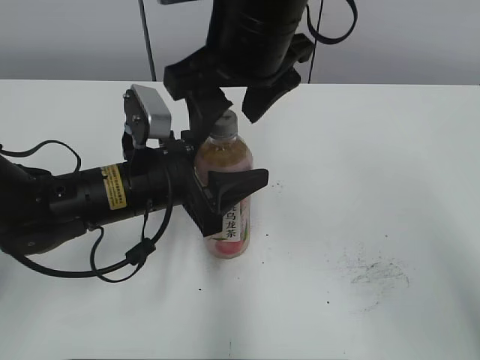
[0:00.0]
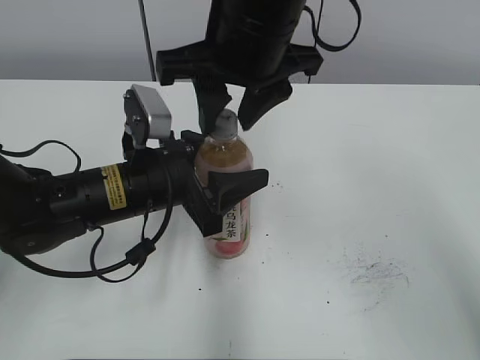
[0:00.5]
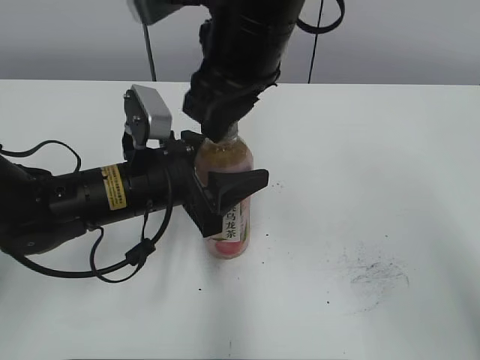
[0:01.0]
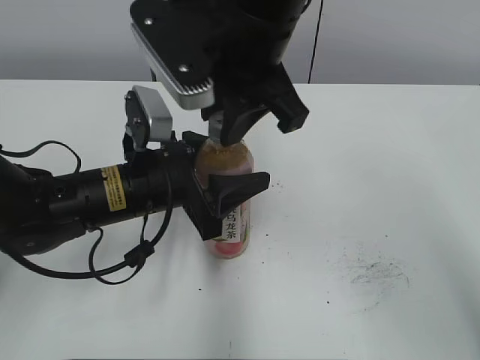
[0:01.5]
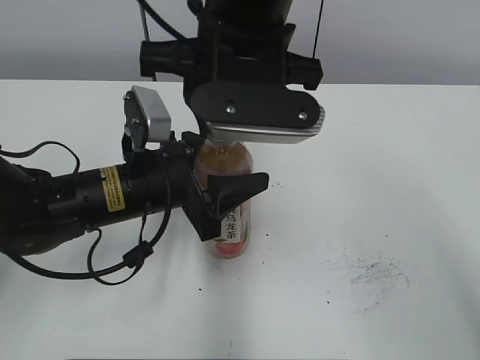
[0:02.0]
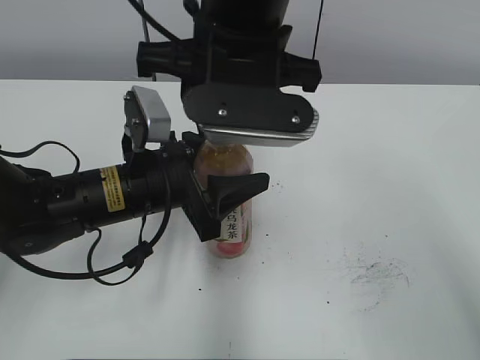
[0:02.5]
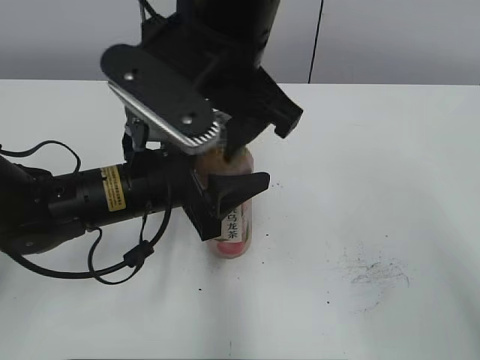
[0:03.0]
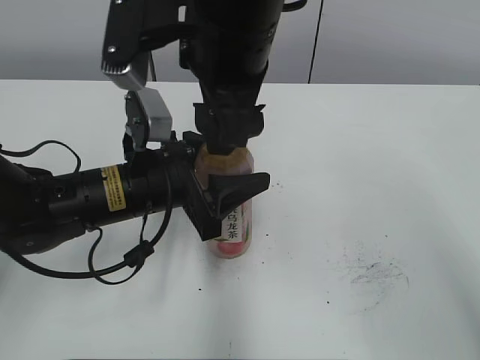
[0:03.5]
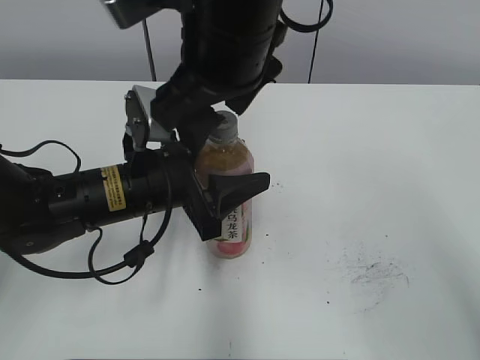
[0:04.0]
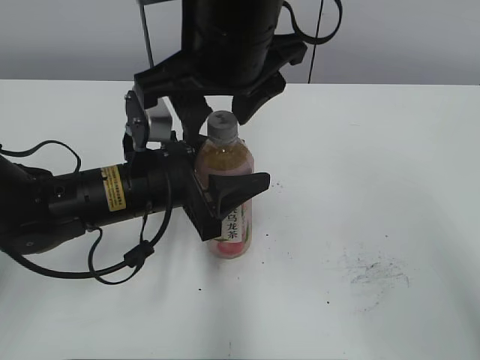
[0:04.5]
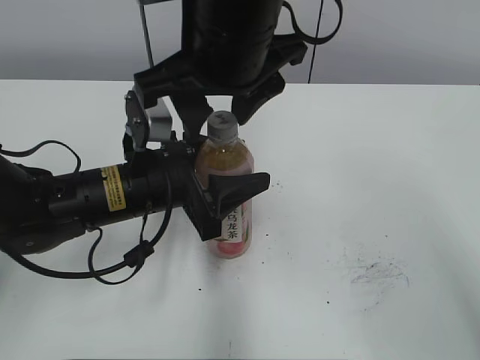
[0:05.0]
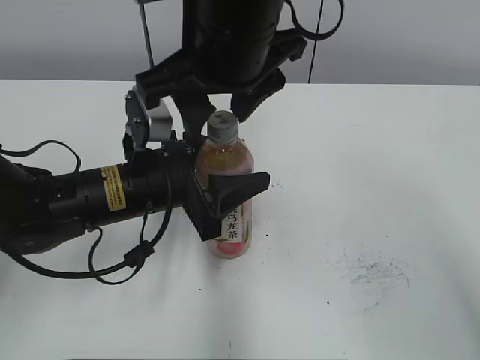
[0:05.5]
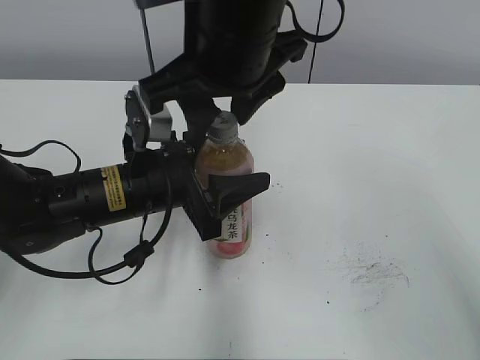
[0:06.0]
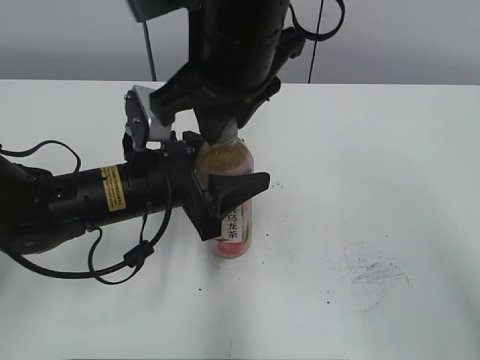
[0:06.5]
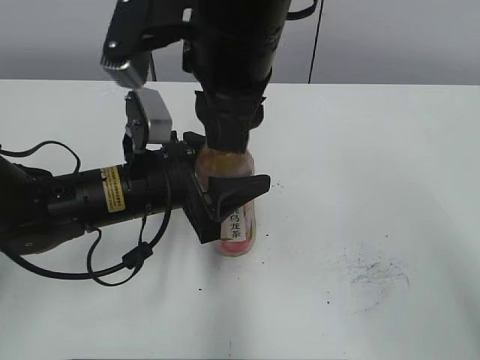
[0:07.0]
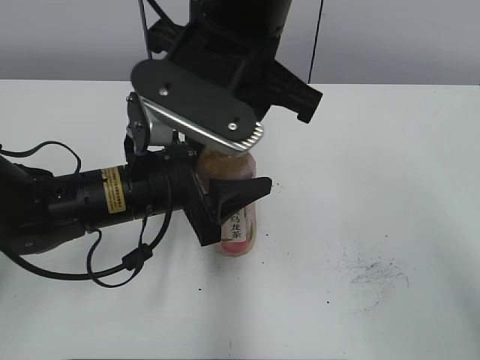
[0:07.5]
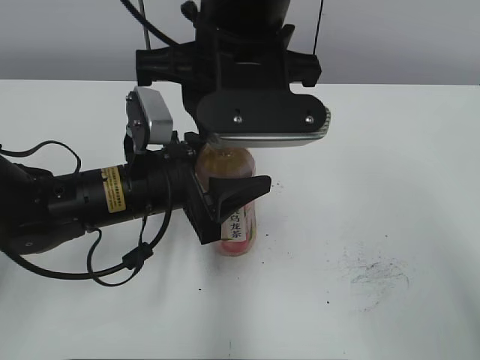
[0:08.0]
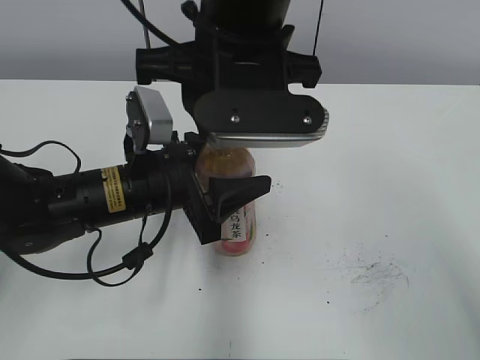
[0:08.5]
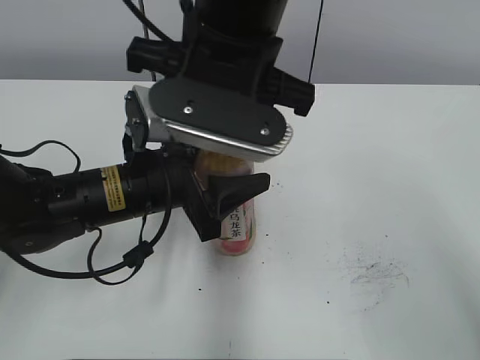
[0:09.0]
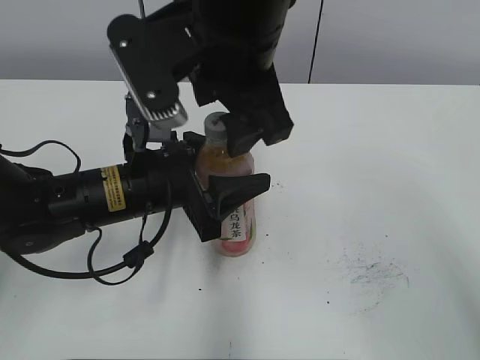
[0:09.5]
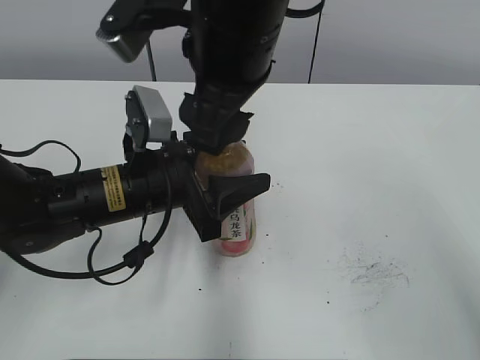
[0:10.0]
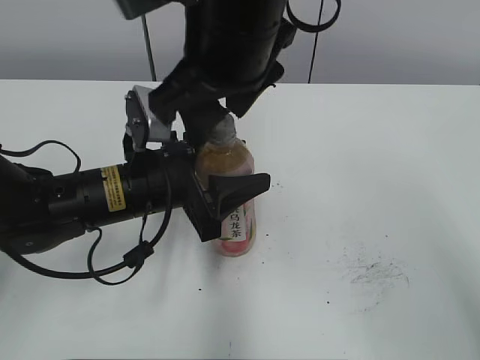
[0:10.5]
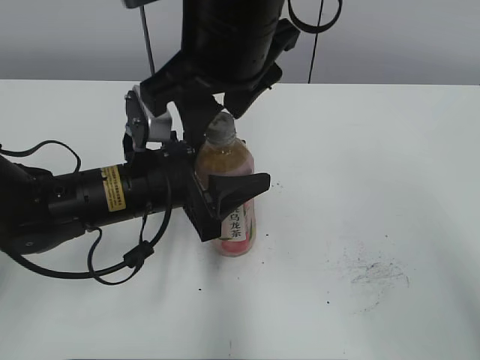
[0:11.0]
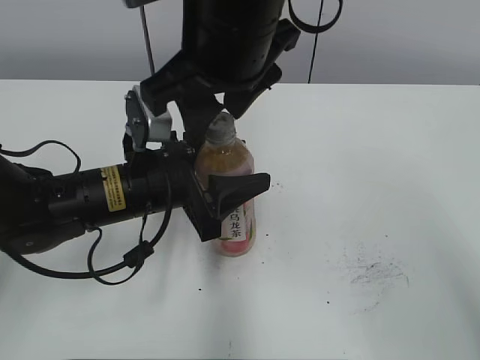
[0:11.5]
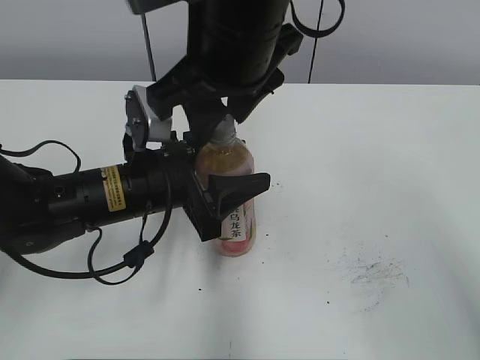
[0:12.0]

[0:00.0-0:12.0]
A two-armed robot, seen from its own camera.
0:00.0 to 0:02.0: The right gripper closes up.
0:02.0 to 0:04.0: The right gripper opens its fingers.
0:04.0 to 0:06.0: The right gripper closes up.
0:06.0 to 0:08.0: The right gripper closes its fingers.
0:08.0 to 0:10.0: The right gripper opens.
0:10.0 to 0:12.0: The right gripper closes up.

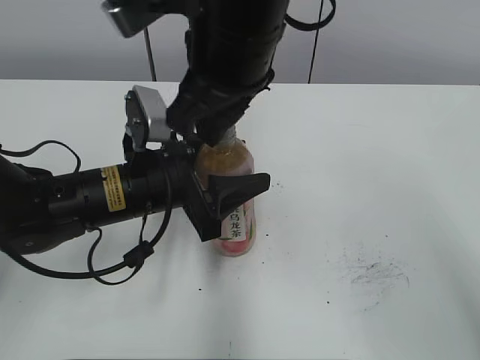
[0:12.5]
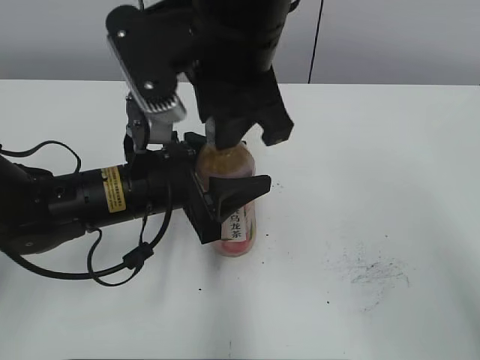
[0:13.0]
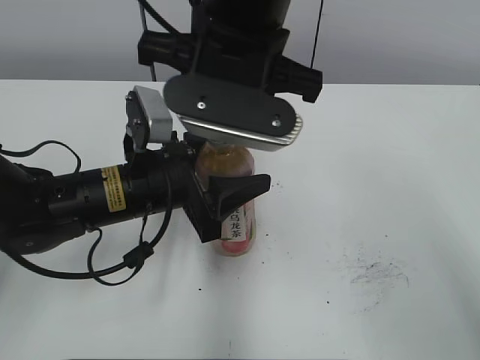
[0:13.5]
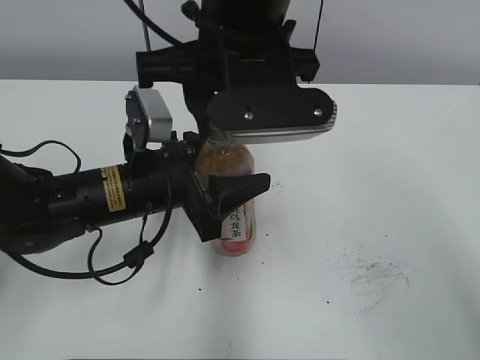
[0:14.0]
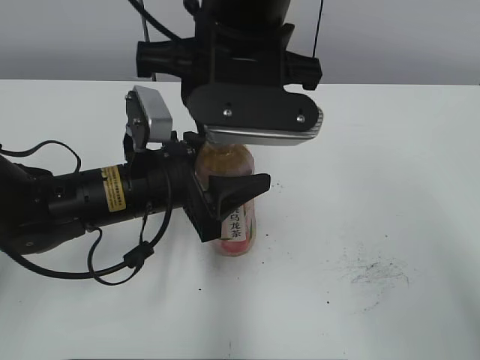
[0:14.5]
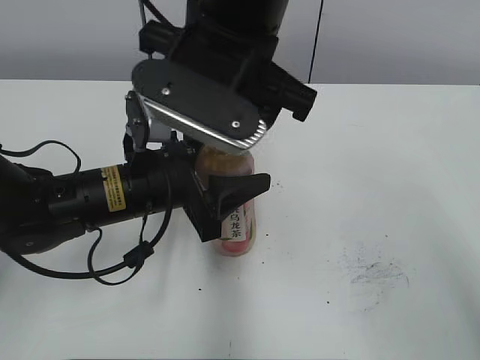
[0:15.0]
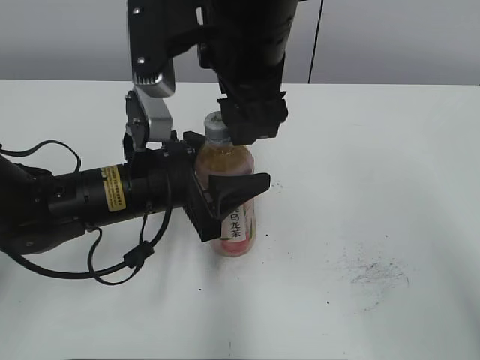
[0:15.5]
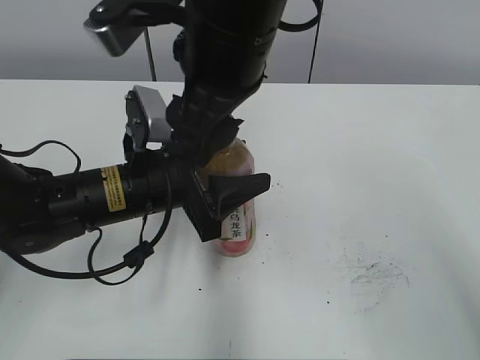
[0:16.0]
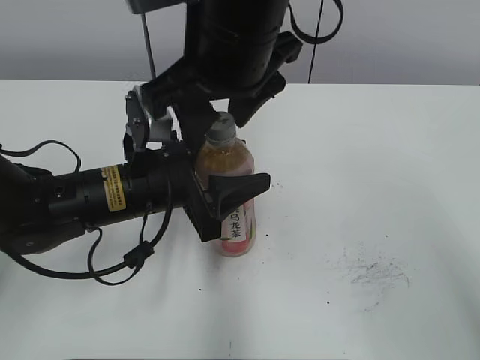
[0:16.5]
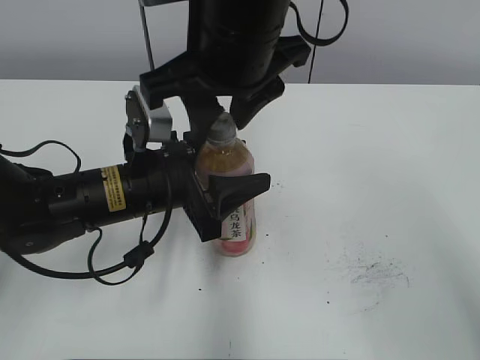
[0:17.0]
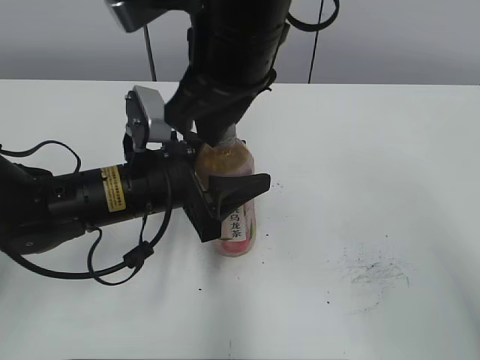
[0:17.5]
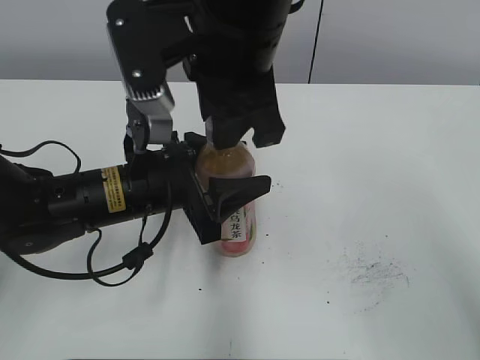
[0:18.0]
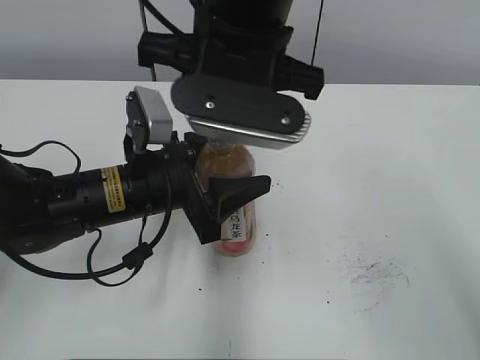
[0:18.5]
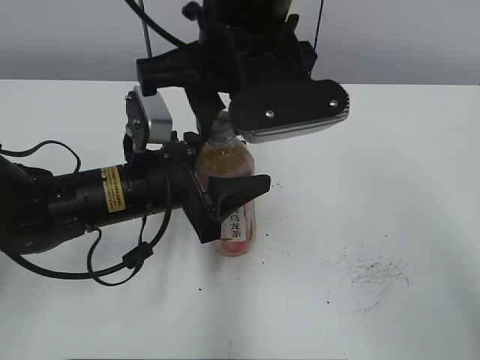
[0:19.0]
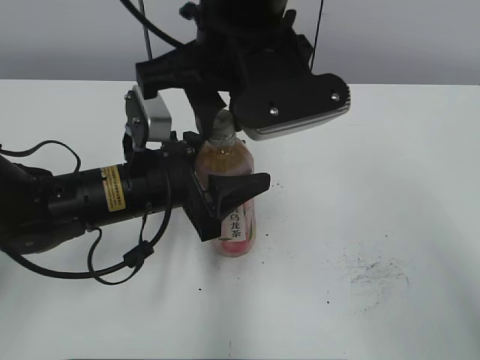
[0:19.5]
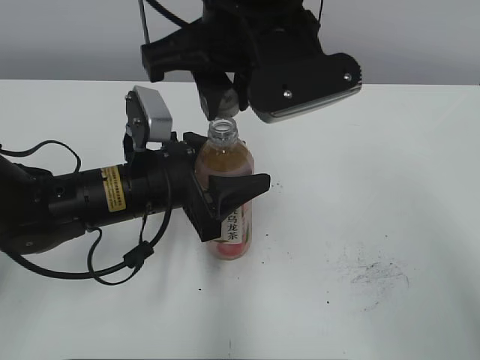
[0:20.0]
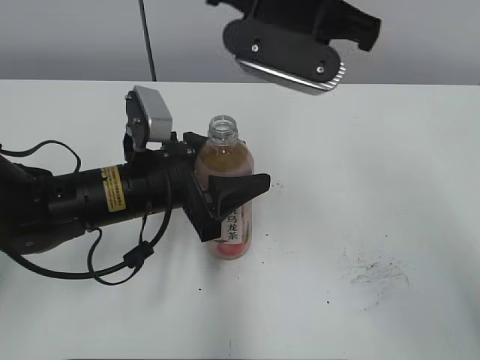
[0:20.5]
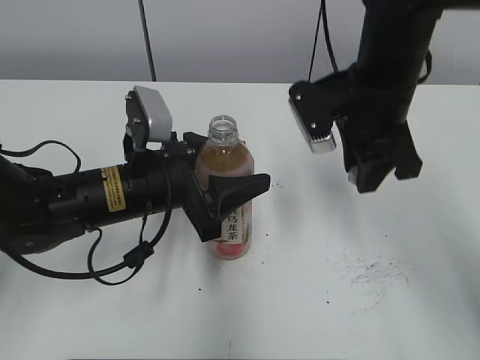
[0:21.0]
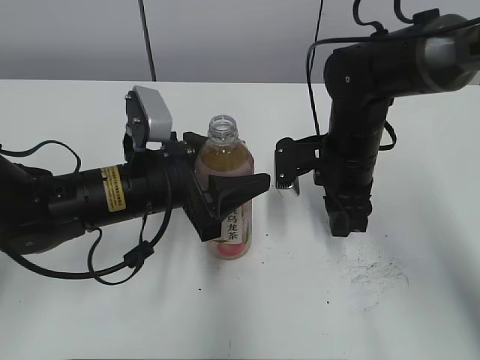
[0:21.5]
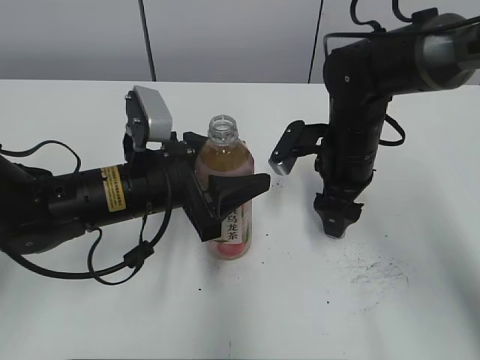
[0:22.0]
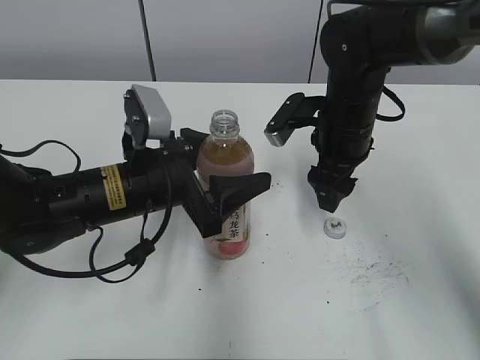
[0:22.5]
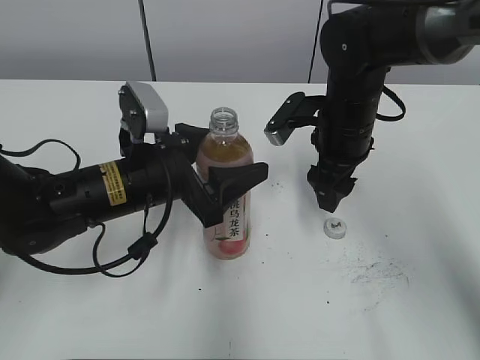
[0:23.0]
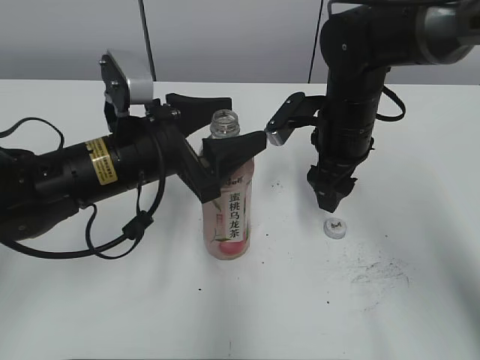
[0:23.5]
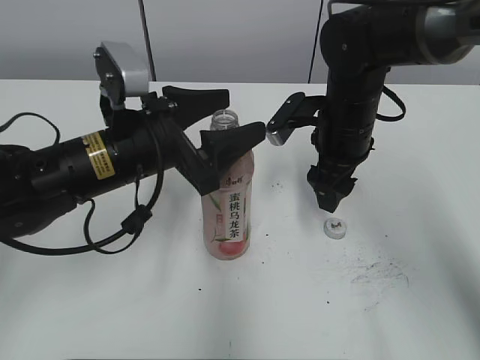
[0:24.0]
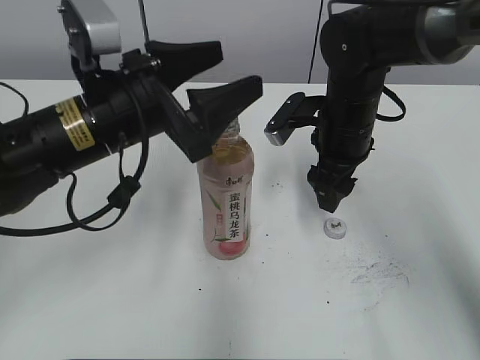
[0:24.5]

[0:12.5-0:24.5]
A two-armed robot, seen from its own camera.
Step, 0:20.0 to 0:21.5: Place the bottle cap on the right.
Step, 0:22.5 to 0:23.0: Place the Peach Oolong Tea with the left hand.
0:14.5 to 0:16.5: The right gripper opens up.
0:16.5 to 0:18.5: The right gripper closes its fingers.
0:18.5 to 0:20.5: The right gripper moves approximately 5 cm.
0:20.5 to 0:22.5: The right gripper heads downward and to the right, covering roughly 20 cm, and opens its fingers.
0:22.5 to 0:24.5: The left gripper shifts some 10 cm upward.

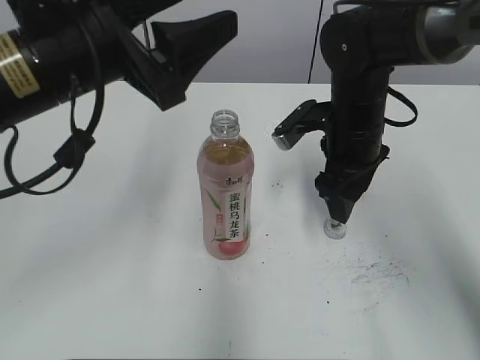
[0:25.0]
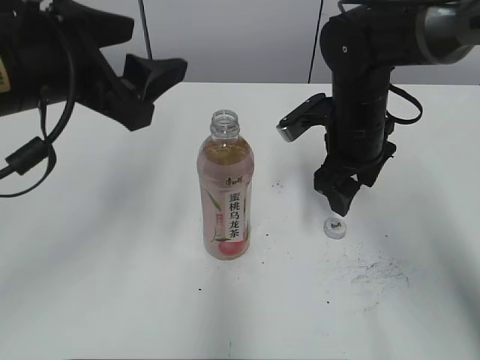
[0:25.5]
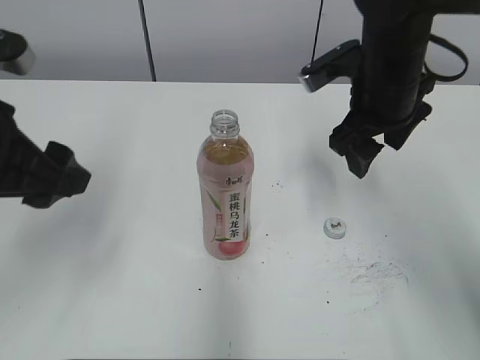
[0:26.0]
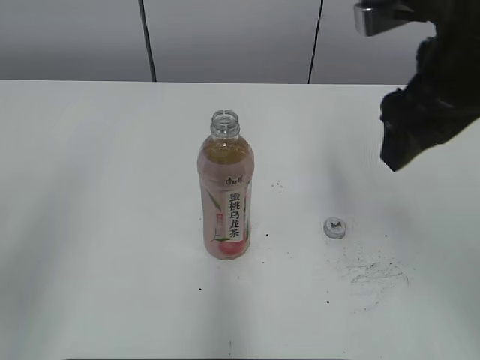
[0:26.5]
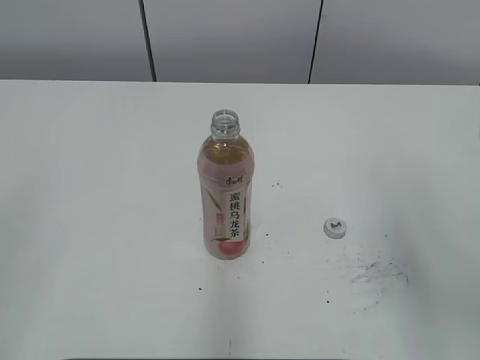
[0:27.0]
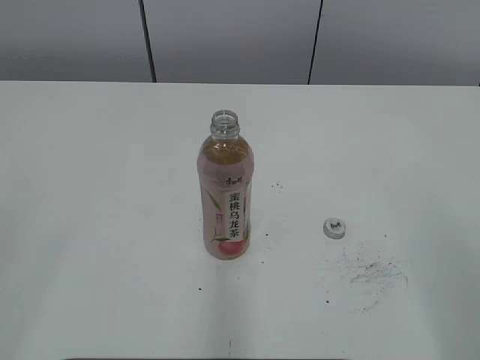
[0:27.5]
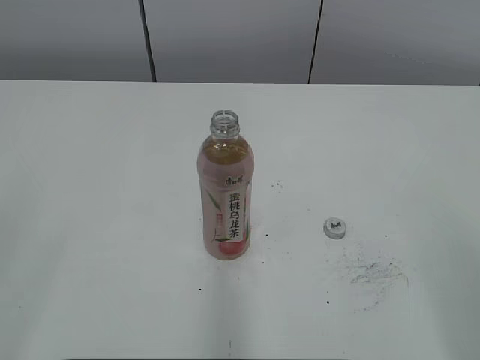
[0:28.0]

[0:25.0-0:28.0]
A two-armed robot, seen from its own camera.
0:25.0 to 0:26.5: The left gripper goes roughly 20 cm backward and to the left. The right gripper heads upward and backward, covering some 15 cm.
0:26.5 to 0:28.0: The right gripper is displaced backward and to the right by roughly 30 cm.
